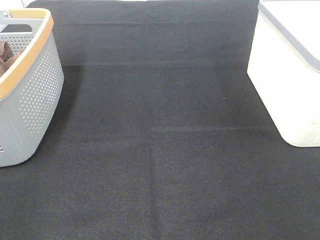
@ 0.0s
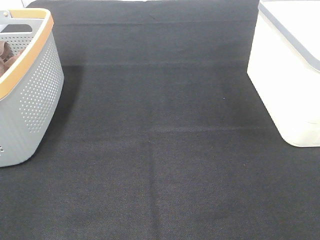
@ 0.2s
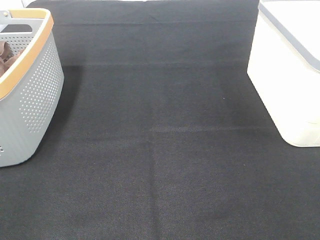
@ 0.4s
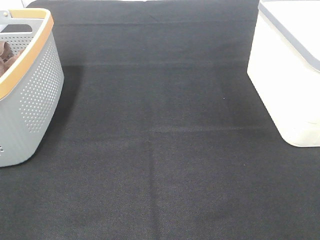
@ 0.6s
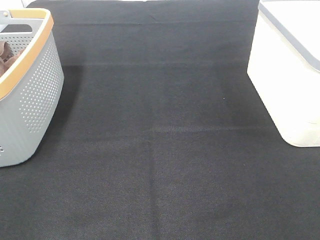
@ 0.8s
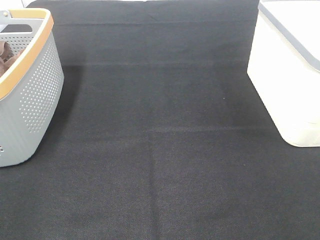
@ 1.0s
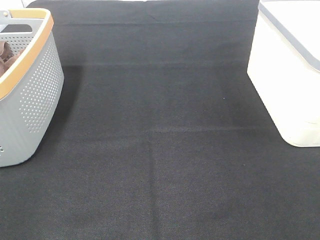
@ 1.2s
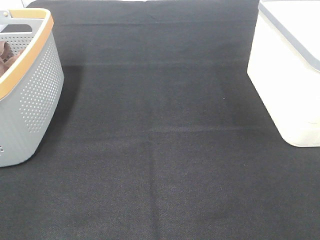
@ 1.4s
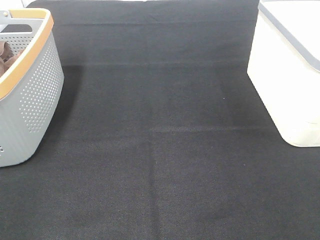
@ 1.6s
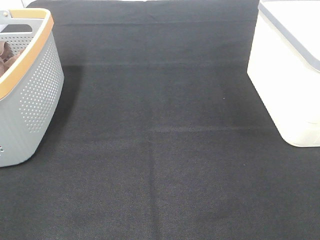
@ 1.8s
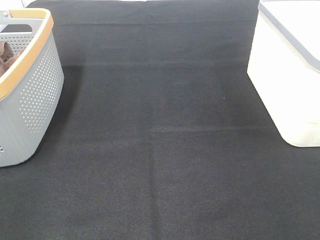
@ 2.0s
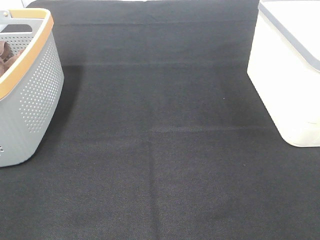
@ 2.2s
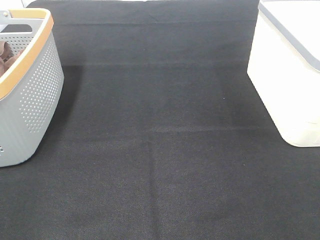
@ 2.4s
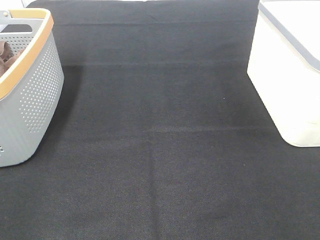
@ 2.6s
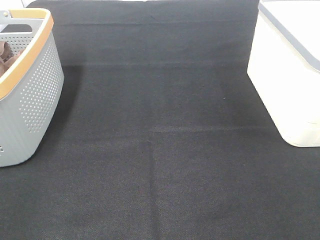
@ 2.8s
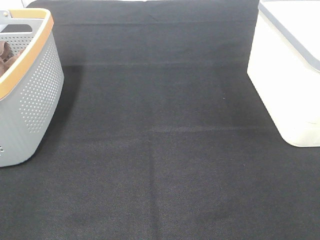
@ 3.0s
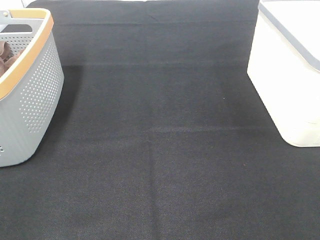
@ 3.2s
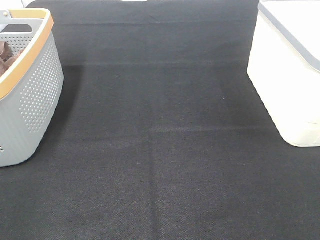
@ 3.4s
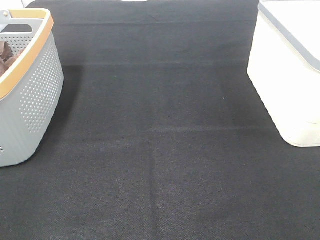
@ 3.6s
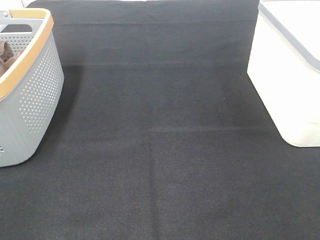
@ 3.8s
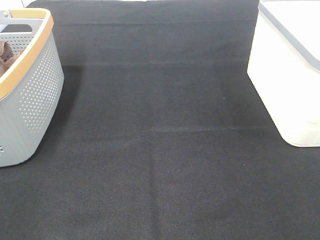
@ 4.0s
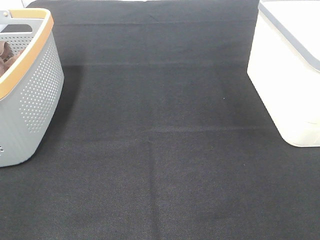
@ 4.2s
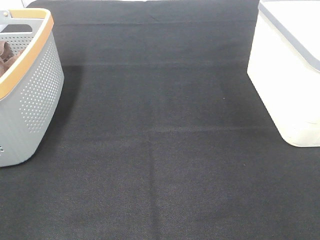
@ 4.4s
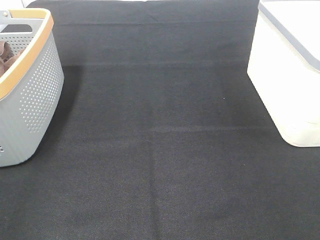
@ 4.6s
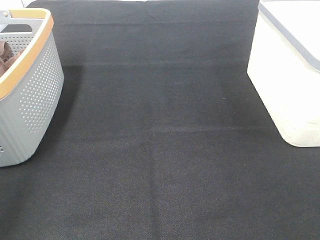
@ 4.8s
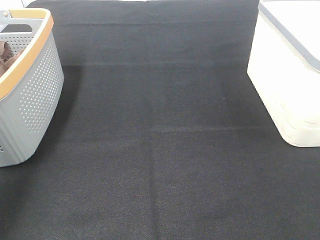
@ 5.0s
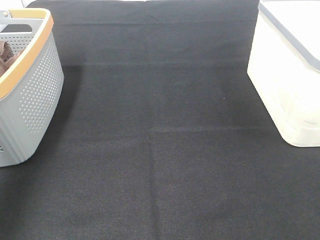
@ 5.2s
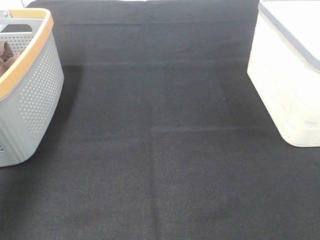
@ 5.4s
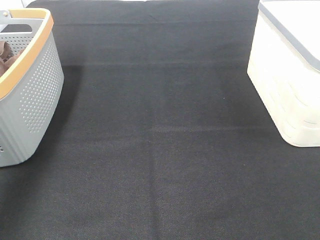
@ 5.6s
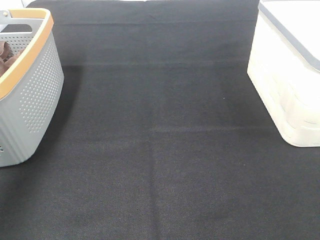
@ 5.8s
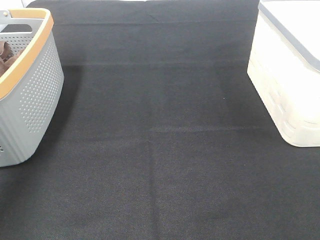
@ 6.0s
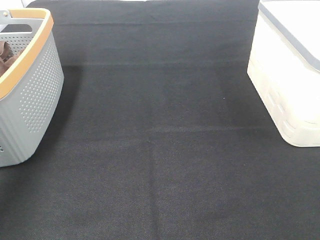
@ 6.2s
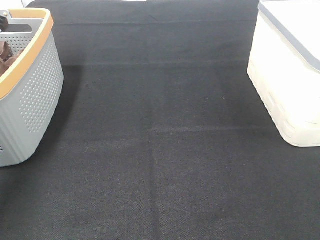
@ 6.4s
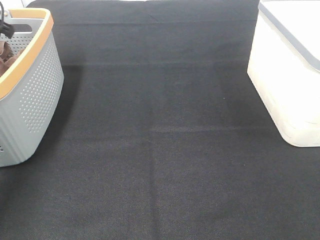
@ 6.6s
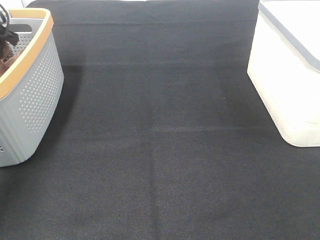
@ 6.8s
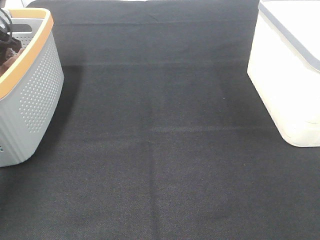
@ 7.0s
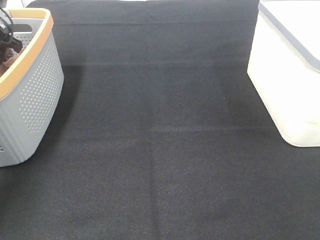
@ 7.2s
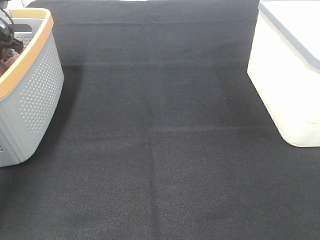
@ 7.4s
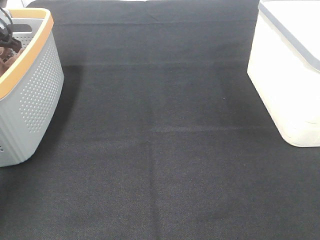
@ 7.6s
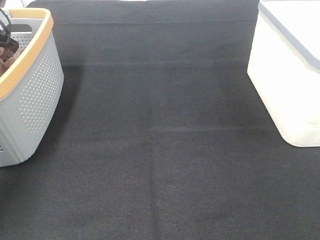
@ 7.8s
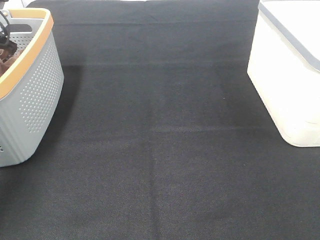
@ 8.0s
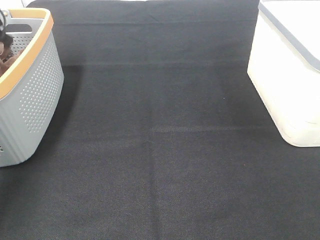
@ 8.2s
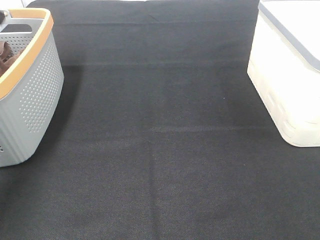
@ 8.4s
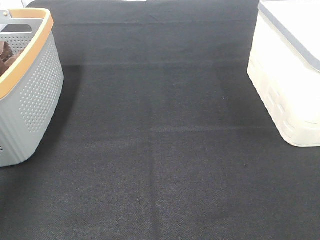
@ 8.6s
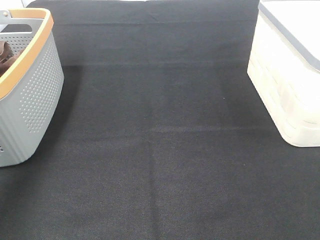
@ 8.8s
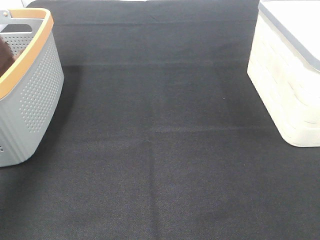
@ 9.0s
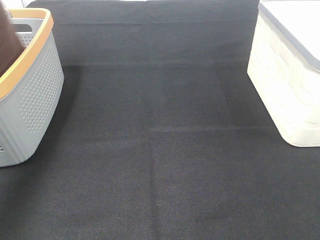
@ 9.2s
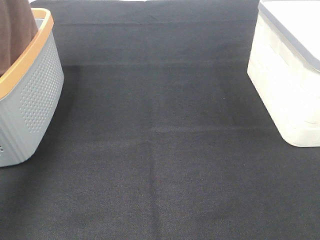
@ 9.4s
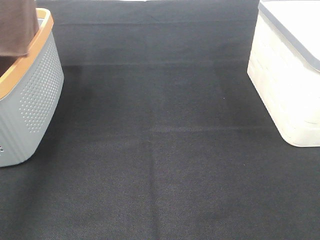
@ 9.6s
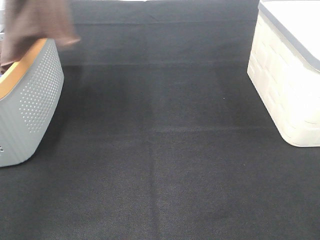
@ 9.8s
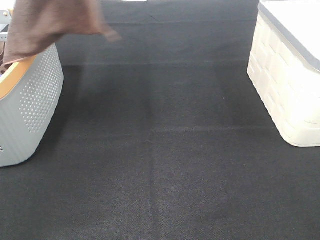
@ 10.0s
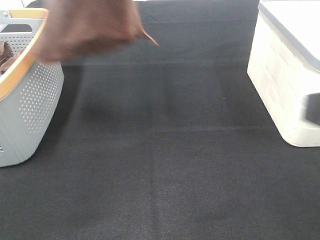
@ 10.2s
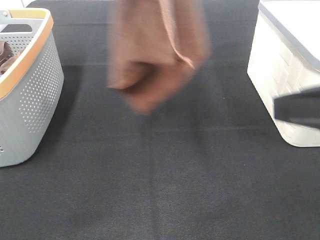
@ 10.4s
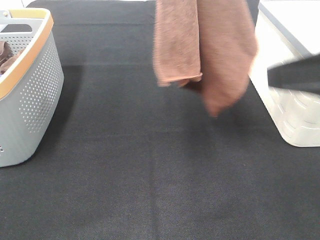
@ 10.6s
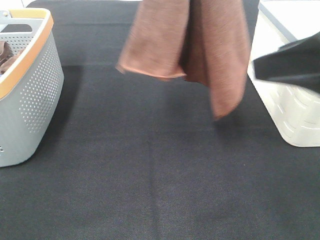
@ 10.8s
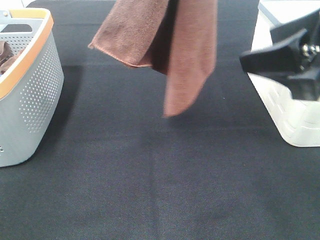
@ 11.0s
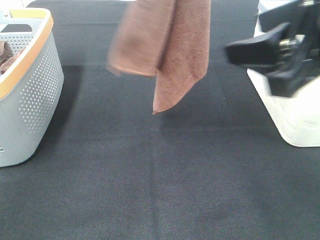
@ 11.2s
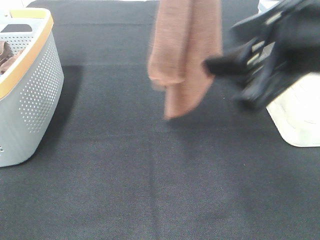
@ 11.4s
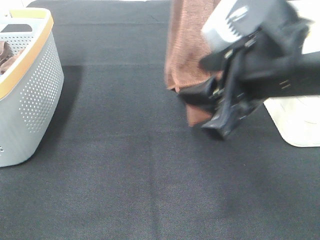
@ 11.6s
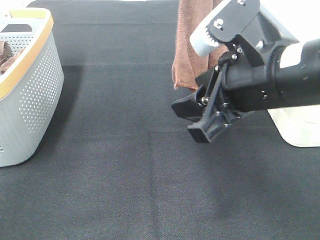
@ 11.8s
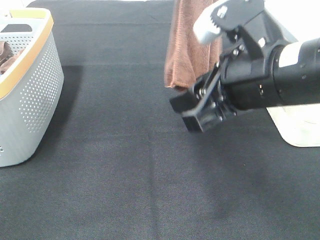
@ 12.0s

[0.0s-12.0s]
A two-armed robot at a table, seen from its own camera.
Task of the whole recording: Remove the towel and place it.
0.0s to 3.0s: Both grippers stay put.
4.4s to 6.0s: The left gripper heads forward, covering approximately 40 cm.
6.0s to 7.6s: The left gripper travels downward and forward by roughly 10 cm, and closes.
7.6s to 9.0s: The left gripper is displaced upward and backward by about 25 cm.
9.0s to 10.4s: The right gripper moves forward, approximately 15 cm. Meanwhile the left gripper travels to the right by some 20 cm.
10.4s to 12.0s: The right gripper heads to the left and forward, covering about 15 cm. Meanwhile the left gripper changes place by some 5 cm.

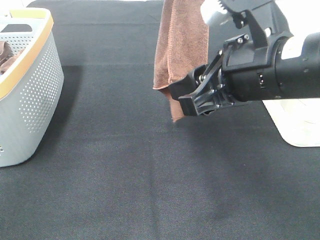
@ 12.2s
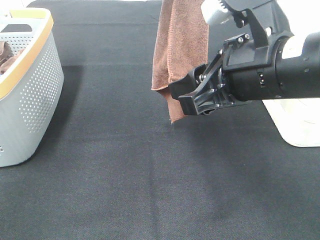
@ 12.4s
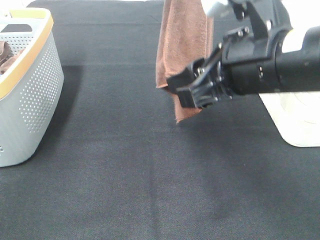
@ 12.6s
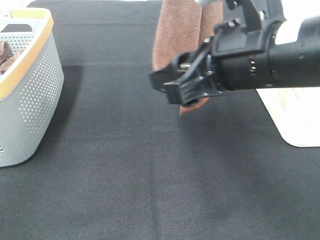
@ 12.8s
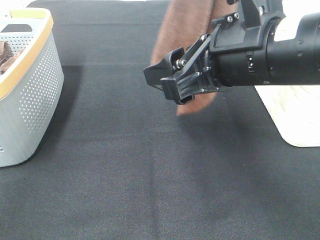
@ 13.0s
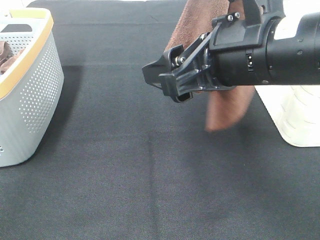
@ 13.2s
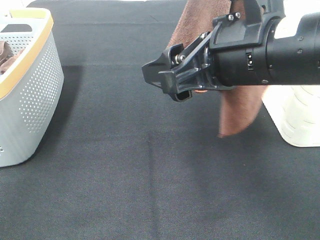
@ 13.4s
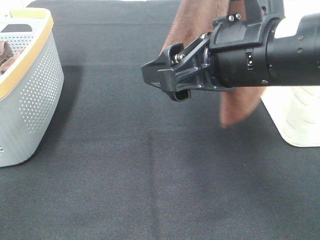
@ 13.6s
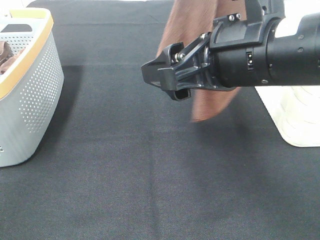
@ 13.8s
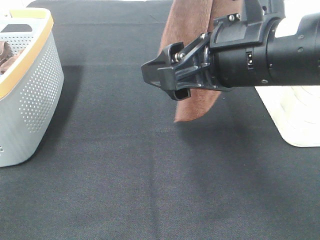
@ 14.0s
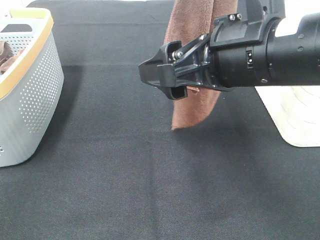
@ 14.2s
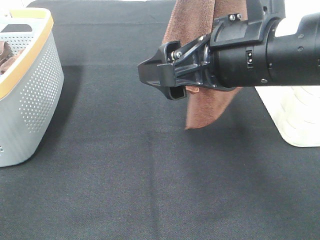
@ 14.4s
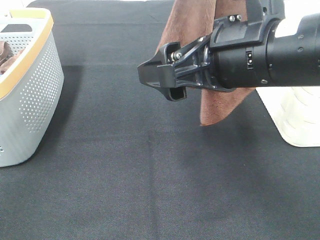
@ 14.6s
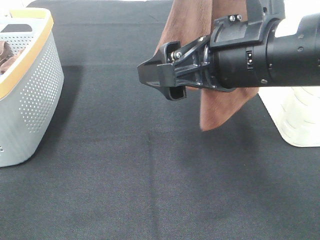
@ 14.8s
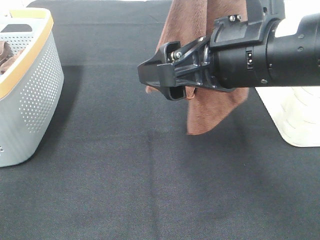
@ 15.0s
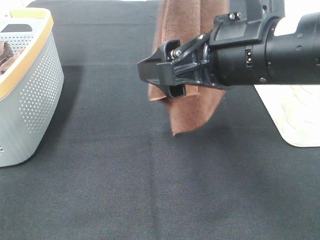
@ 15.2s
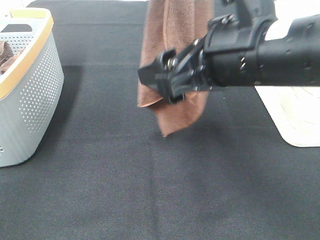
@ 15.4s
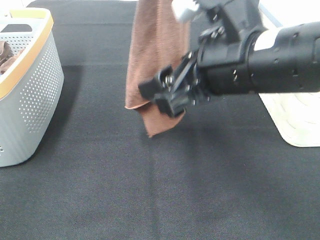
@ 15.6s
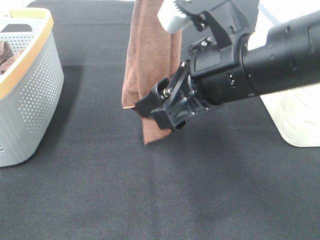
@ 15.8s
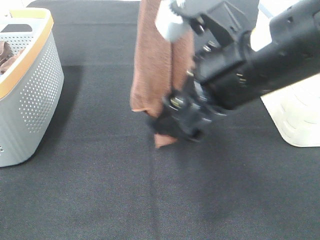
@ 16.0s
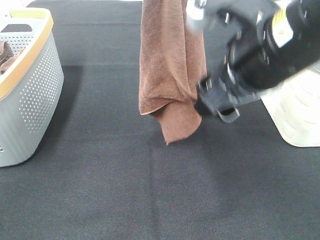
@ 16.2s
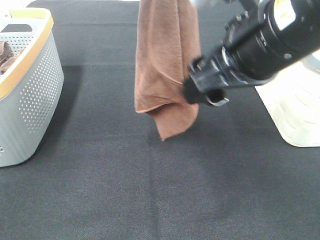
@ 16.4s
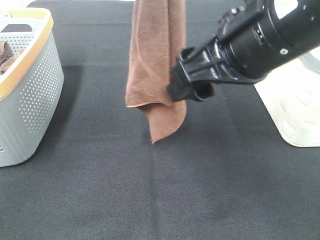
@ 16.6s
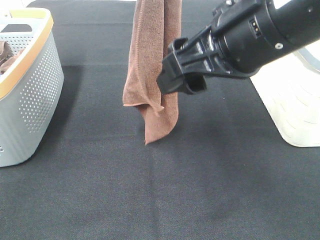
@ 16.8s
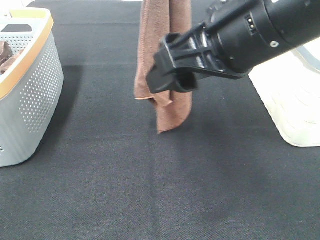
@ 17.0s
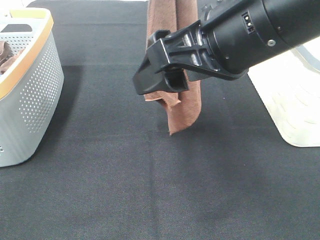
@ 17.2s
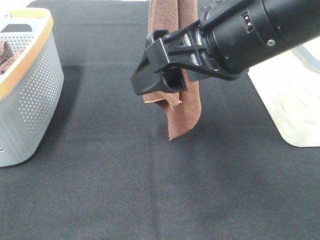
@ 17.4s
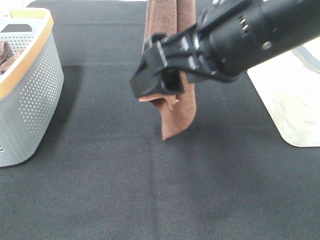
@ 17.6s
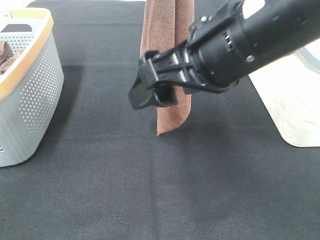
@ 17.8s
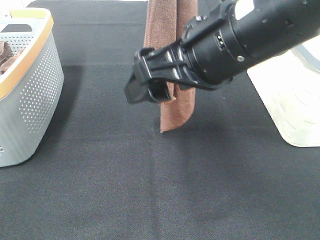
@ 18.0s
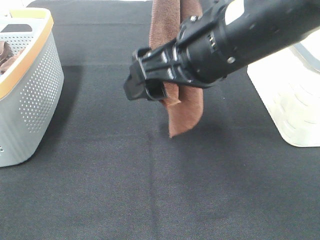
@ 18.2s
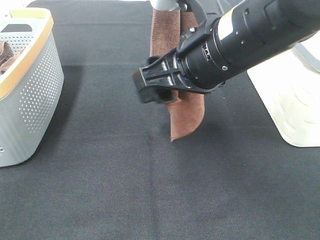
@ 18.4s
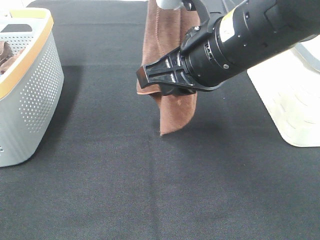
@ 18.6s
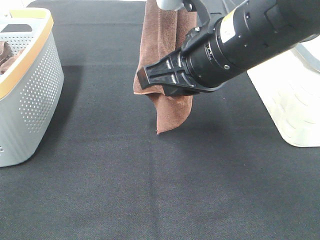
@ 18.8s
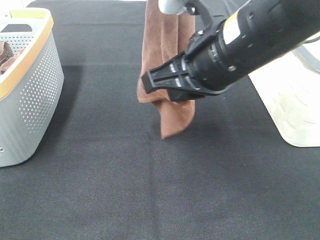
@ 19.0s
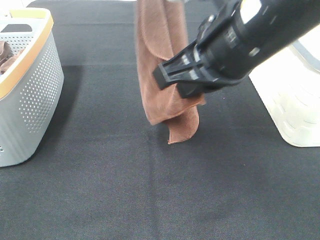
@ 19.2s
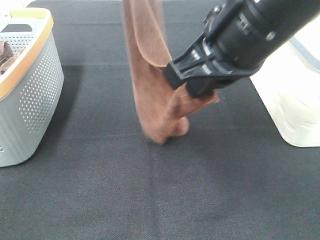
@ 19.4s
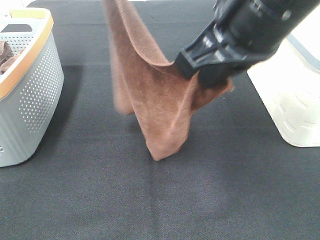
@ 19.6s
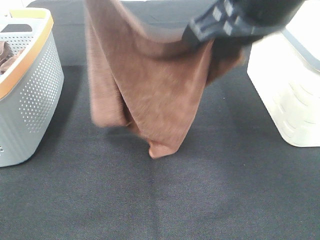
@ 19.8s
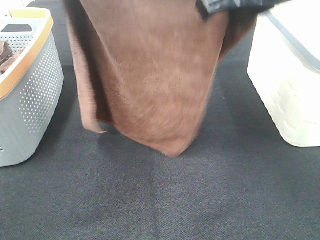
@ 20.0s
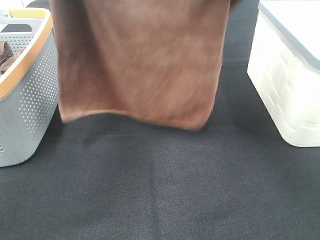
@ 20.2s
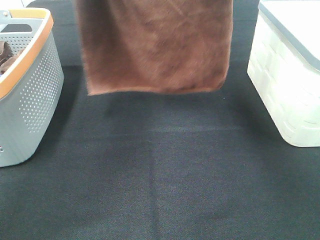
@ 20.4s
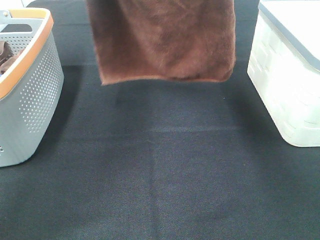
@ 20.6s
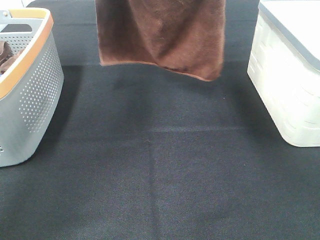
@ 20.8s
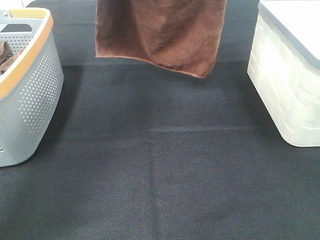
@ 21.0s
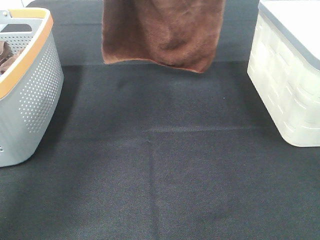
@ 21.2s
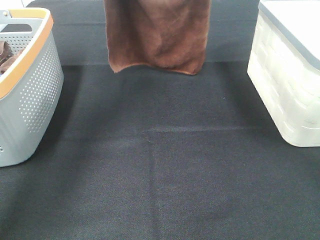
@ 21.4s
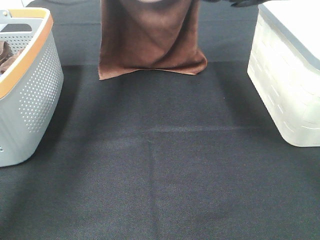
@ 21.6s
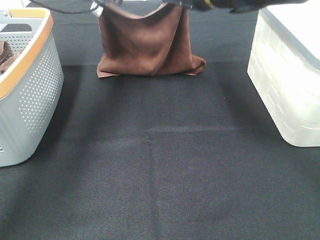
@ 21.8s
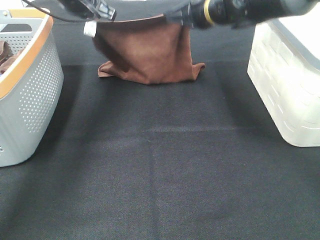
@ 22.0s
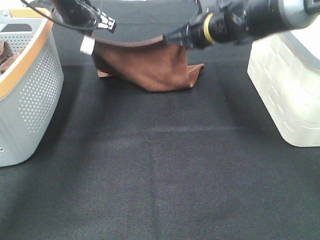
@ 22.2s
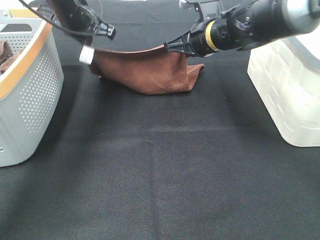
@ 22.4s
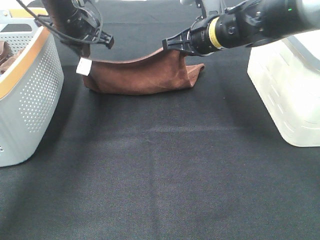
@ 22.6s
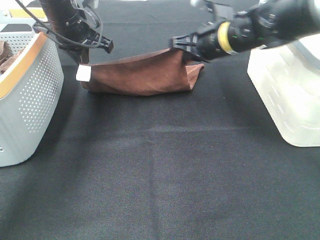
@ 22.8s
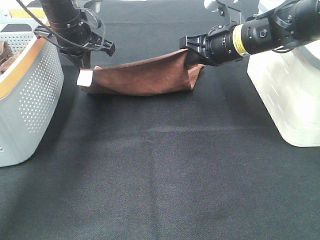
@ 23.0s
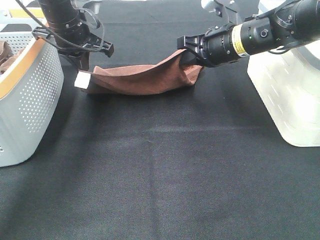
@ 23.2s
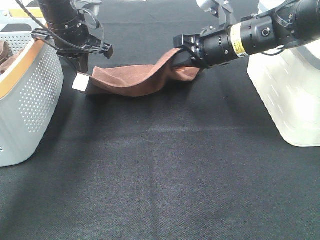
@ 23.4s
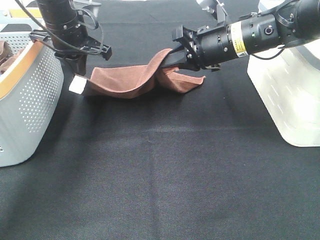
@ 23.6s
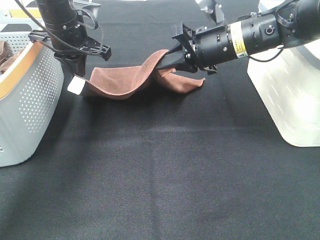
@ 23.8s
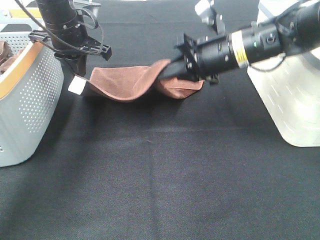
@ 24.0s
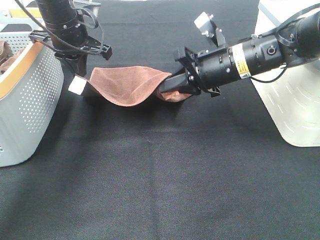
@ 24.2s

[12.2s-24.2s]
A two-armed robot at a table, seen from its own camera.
Task of the whole recording: Remove the towel and place it.
Step, 12.2s to 16.0s: Right hand: grab a corner of the brown towel and straighten it.
Step, 16.2s to 22.6s: Right hand: spread the brown towel flat on the table.
Step, 16.2s to 23.0s: Left hand: spread the brown towel flat on the table.
12.2s to 15.2s: The grippers stay close to where they were, moving slightly.
16.6s to 18.2s: The grippers make only small movements.
18.2s to 19.8s: The left gripper is displaced to the left by some 5 cm. Meanwhile the right gripper goes approximately 10 cm upward, and closes up.
19.8s to 21.2s: The left gripper goes roughly 20 cm forward and downward, while the right gripper is displaced forward by about 20 cm.
21.2s to 22.6s: The grippers both shift downward by roughly 15 cm.
22.6s to 24.2s: The right gripper is displaced backward by roughly 5 cm.
